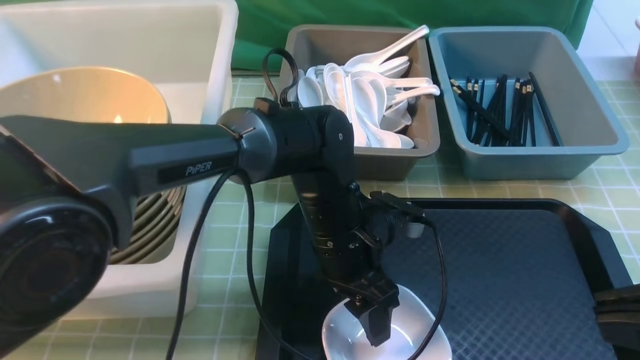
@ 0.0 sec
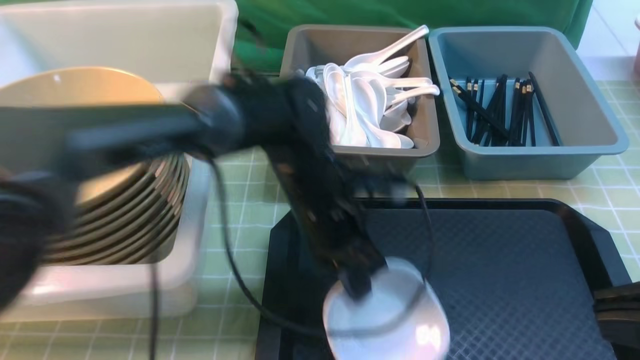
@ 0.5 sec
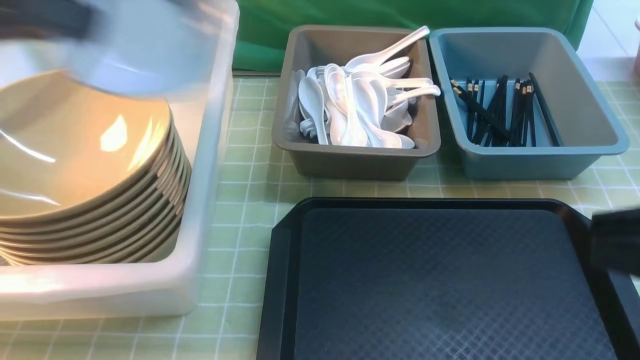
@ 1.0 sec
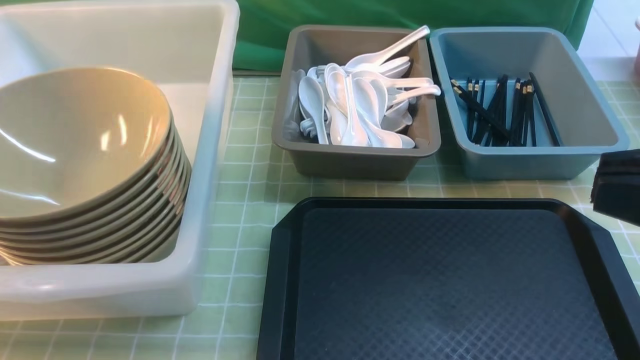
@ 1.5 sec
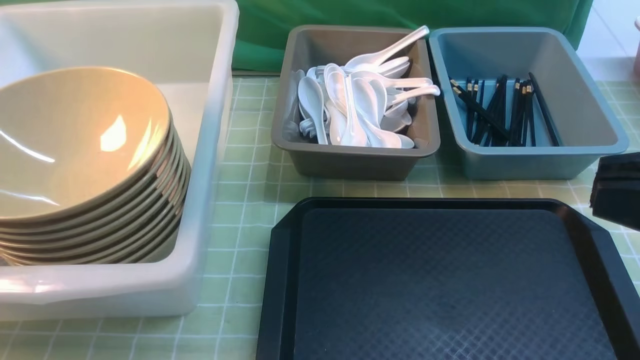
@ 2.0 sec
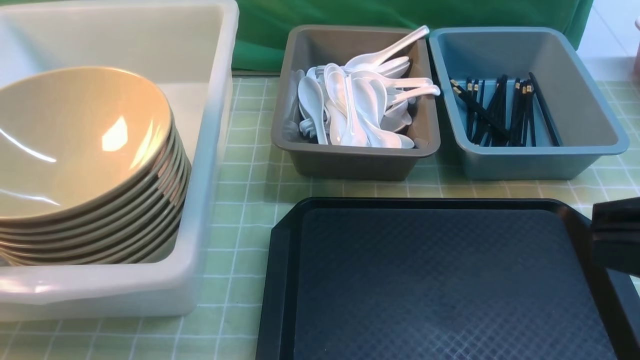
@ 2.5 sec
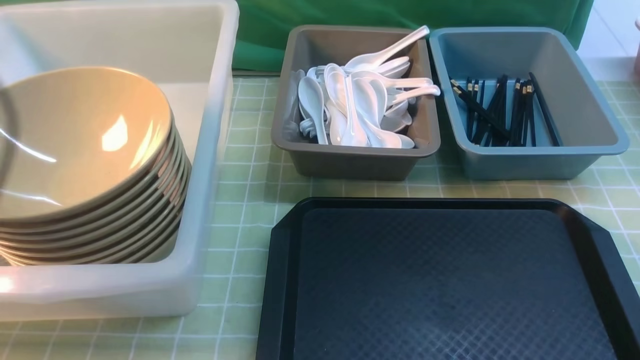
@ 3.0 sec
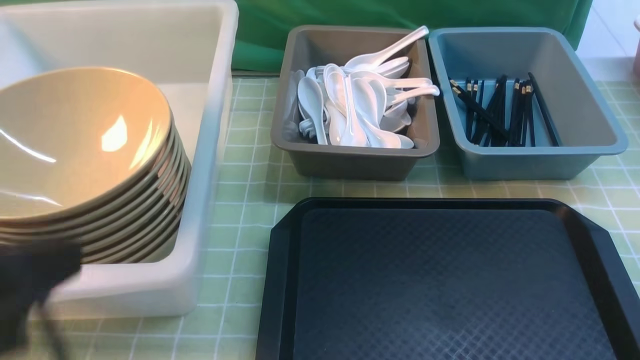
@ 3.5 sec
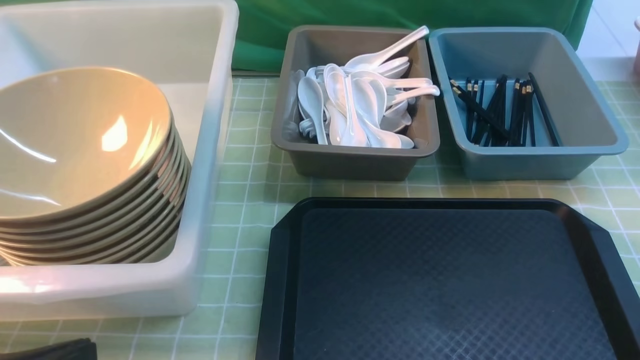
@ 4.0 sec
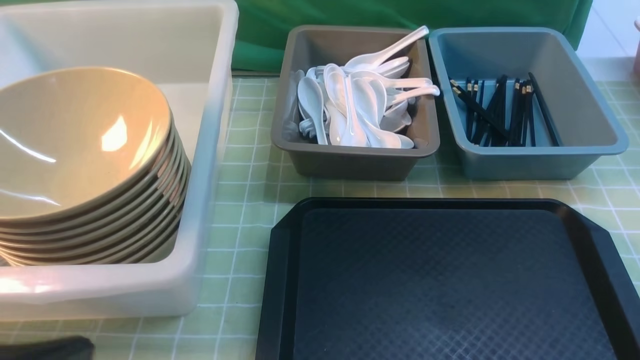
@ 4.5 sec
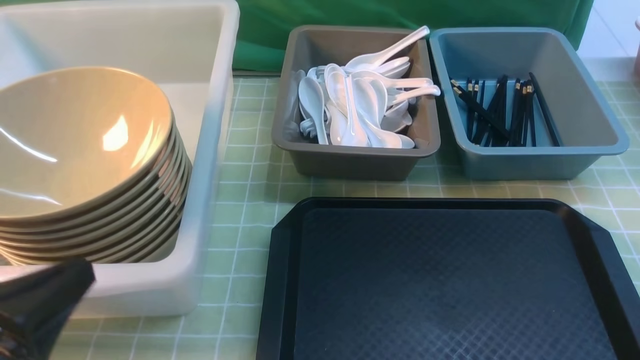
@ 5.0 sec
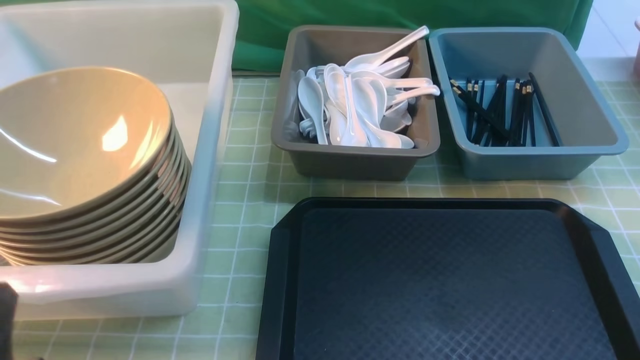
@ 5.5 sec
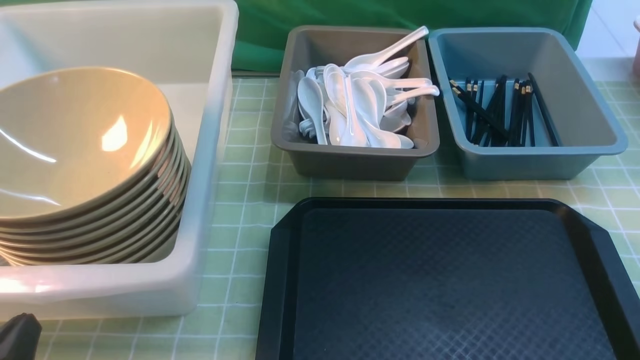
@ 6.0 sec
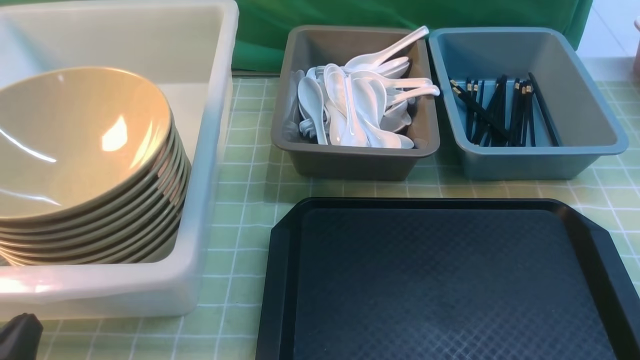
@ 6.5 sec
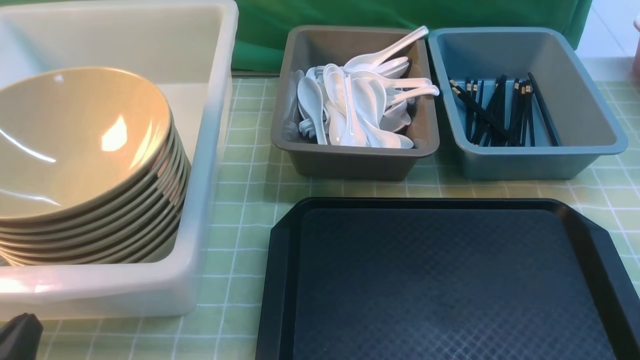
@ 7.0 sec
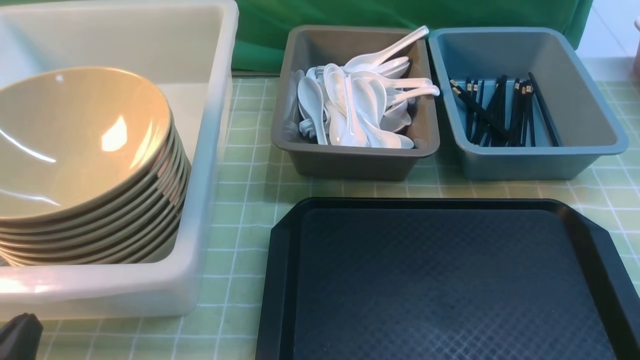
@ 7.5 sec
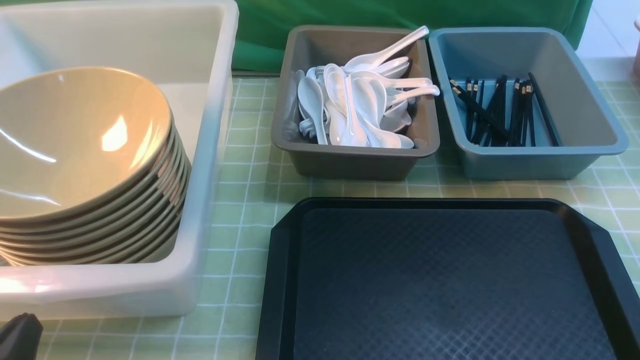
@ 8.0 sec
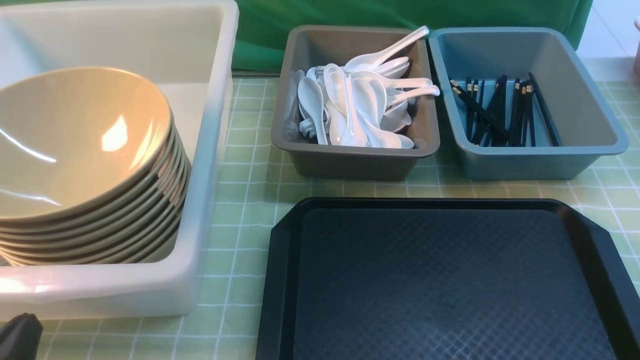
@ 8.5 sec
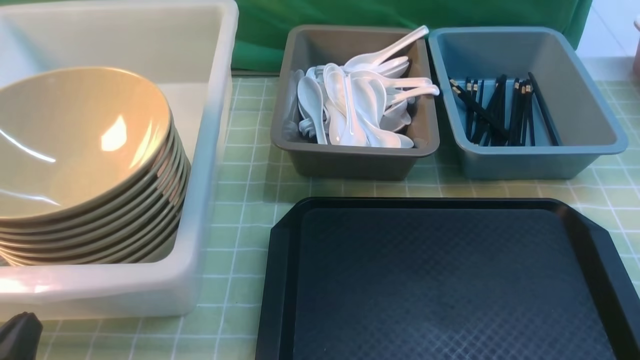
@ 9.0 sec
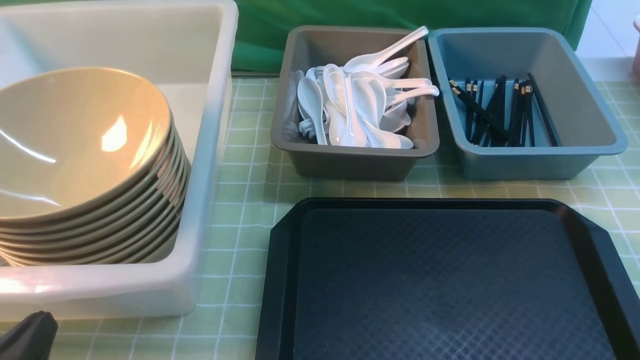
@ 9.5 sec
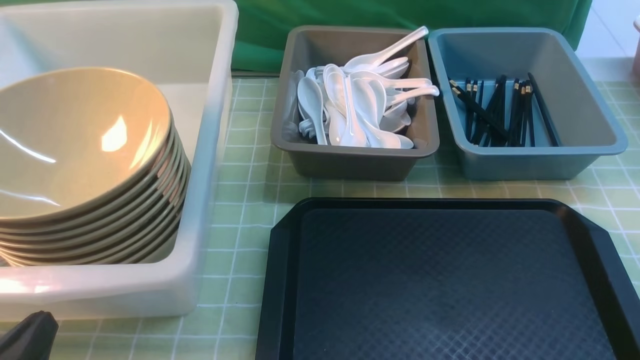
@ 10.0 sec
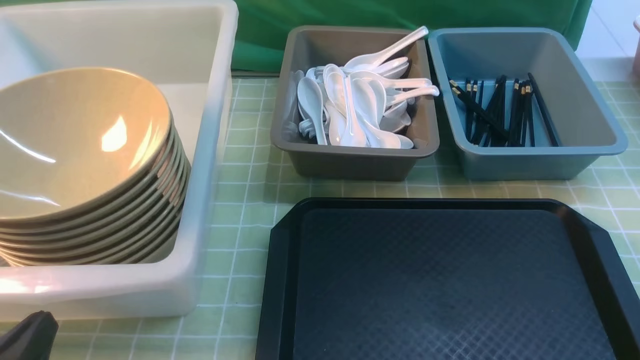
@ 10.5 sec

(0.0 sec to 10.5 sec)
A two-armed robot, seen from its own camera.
Task of the whole recording: on green table put chopsticks spoon bowls plates into blue grey white boxes.
Step, 1.0 sec - 2.0 sec: use the left arm to put the plate into the large storage box on the left.
0.0 sec - 2.0 sec: The left gripper goes about 50 cm to the left, and closes.
2.0 sec - 4.0 sec: The left gripper is displaced to the right and backward by some 30 cm, and opens and closes again; the right gripper moves downward, backward and to the right, about 15 cm.
4.0 sec - 6.5 sec: The left gripper shifts approximately 10 cm downward.
8.5 sec - 10.5 sec: The two grippers keep their place.
